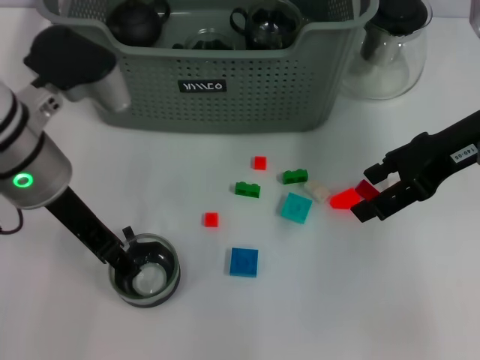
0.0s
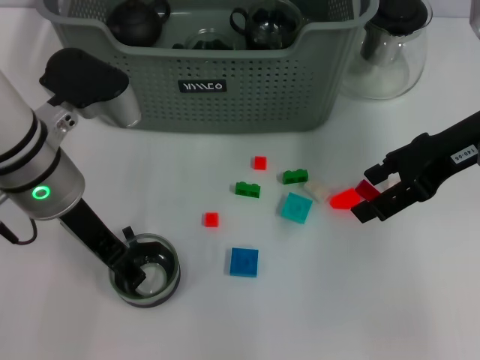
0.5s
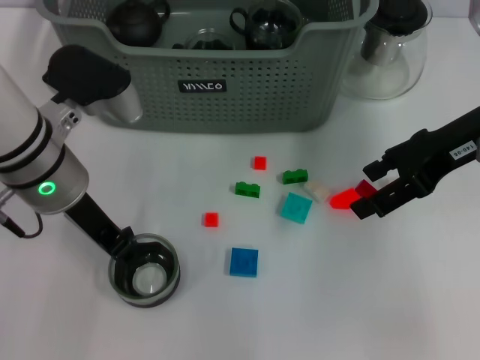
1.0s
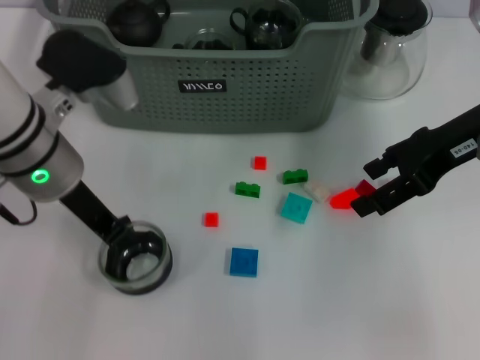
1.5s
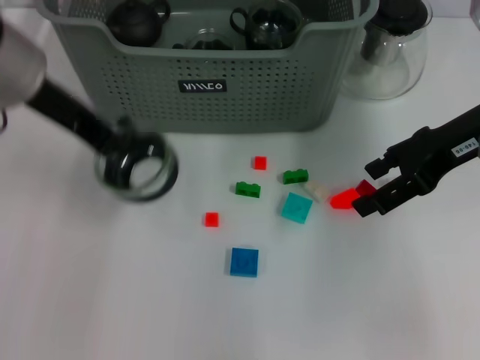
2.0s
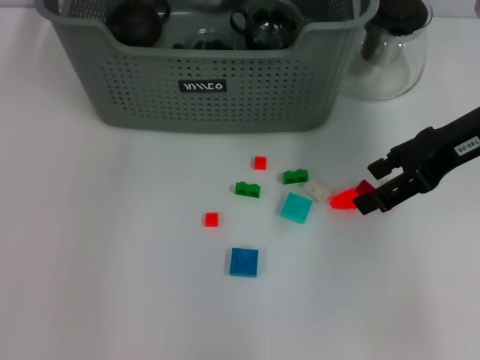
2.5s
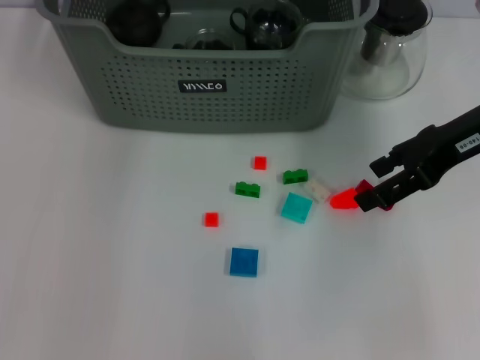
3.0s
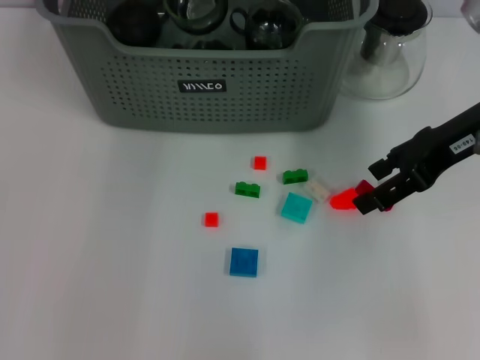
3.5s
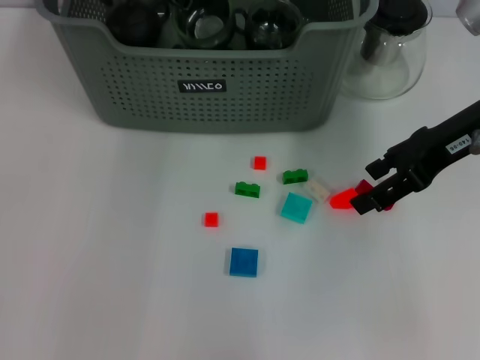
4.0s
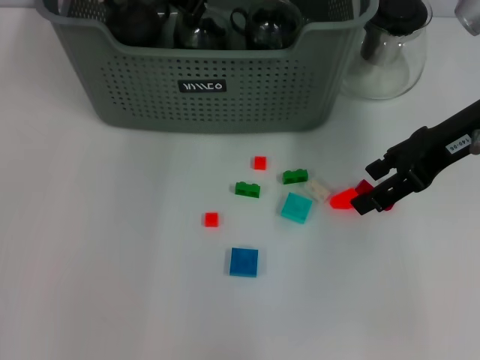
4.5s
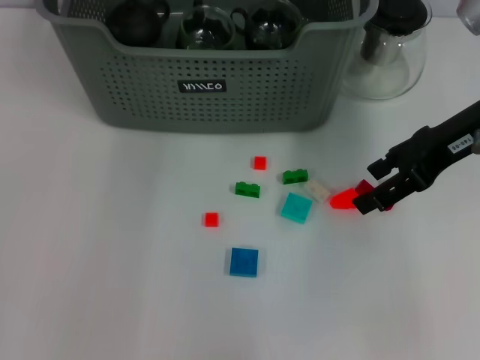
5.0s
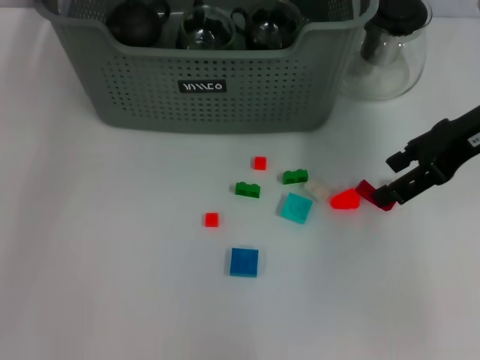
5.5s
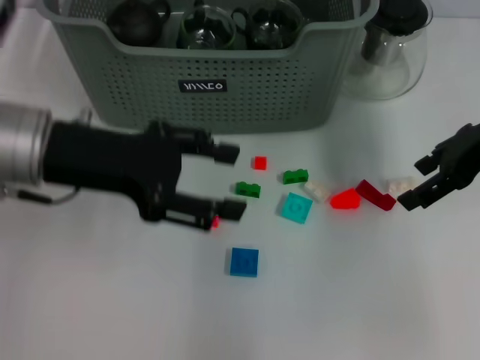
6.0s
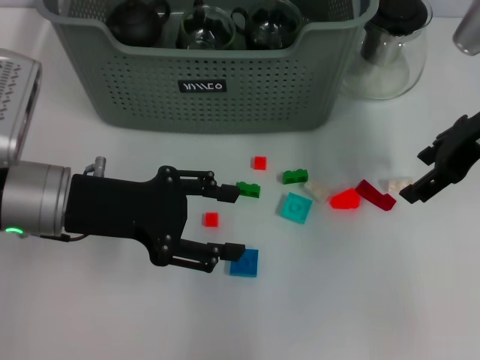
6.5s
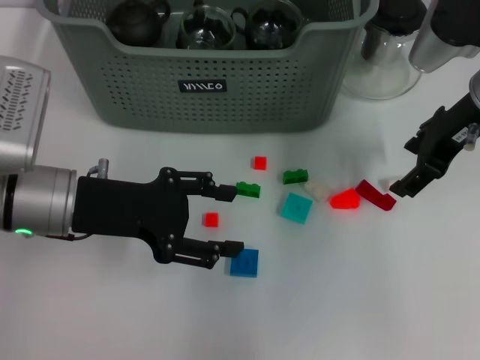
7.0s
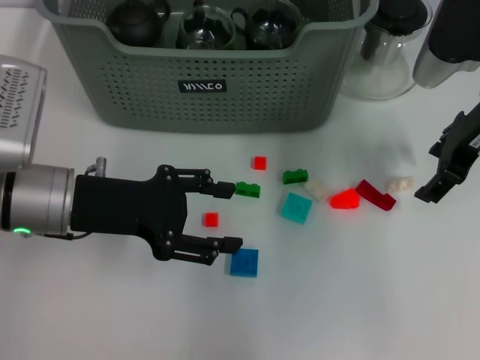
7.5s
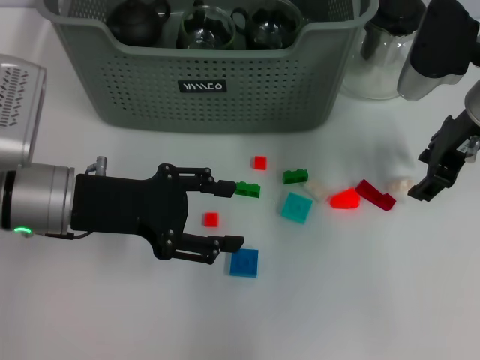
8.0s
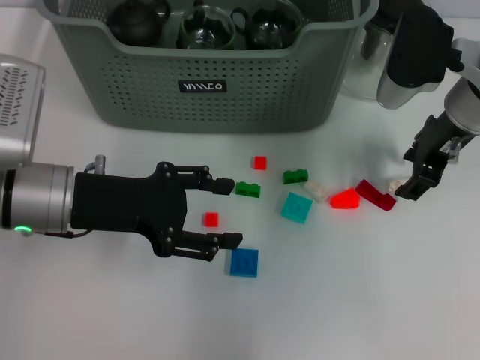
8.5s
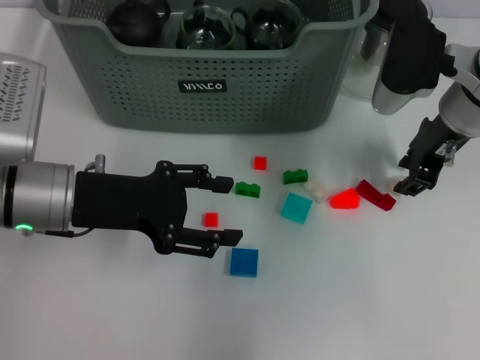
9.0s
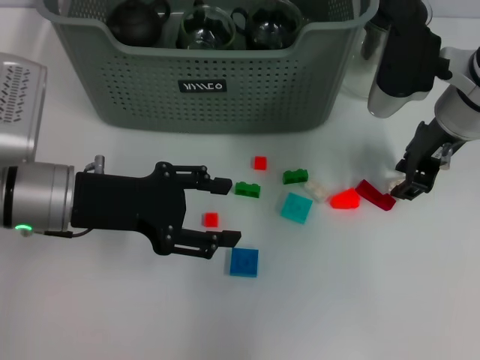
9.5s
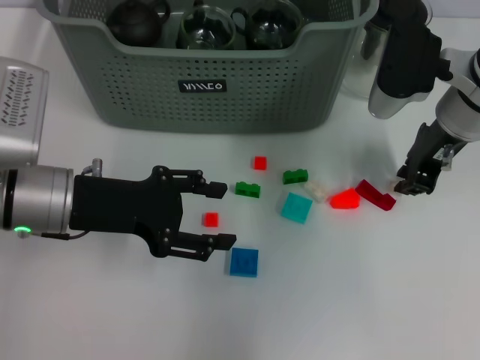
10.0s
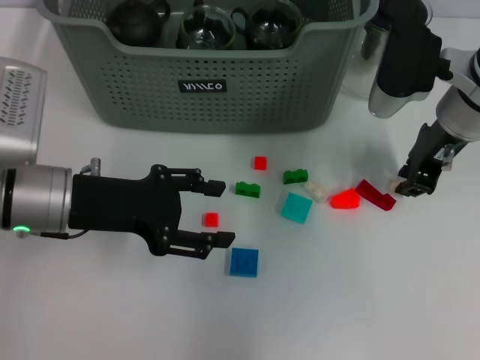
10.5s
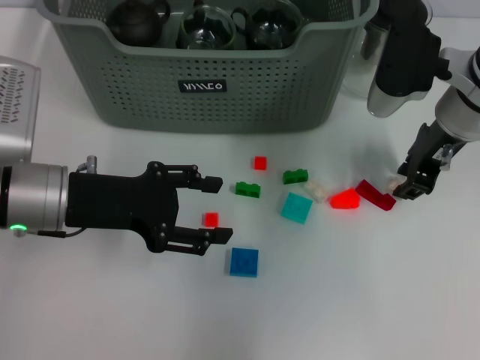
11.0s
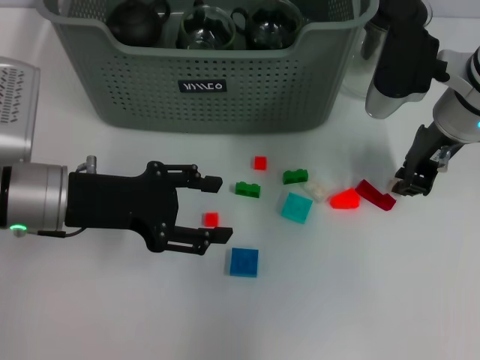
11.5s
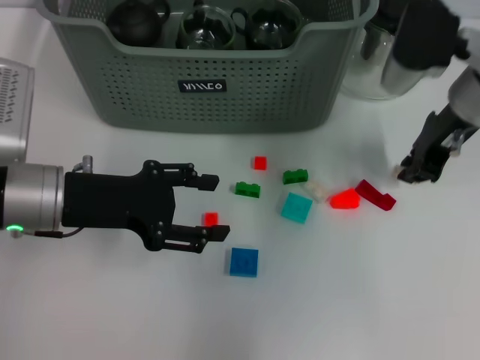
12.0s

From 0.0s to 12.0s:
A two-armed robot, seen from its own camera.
Task of the whole recording: pick up the teacup on the table and place it into the storage bin, pick up the block on the table and place it into the storage bin.
Step, from 1.5s to 4.5s: Place the cup in the storage box with left gripper.
Step, from 5.0s to 11.5s: Grasp the white block with right gripper.
From 0.0s to 2.0s: The left gripper shifts some 10 cm upward, and closes.
From 2.0s to 4.0s: The left gripper heads forward, covering approximately 15 cm.
From 4.0s to 6.0s: The left gripper shifts approximately 20 cm backward and to the left, and opens its fingers.
From 6.0s to 8.0s: The left gripper moves downward, roughly 5 cm; the right gripper shifts by roughly 5 cm.
From 8.0s to 10.0s: The right gripper closes its fingers.
From 10.0s to 12.0s: The grippers move only a little.

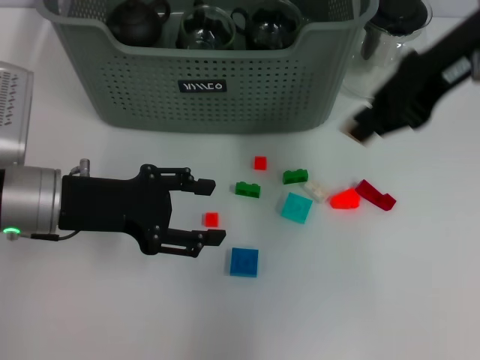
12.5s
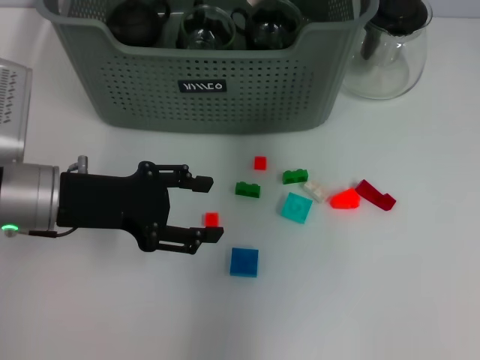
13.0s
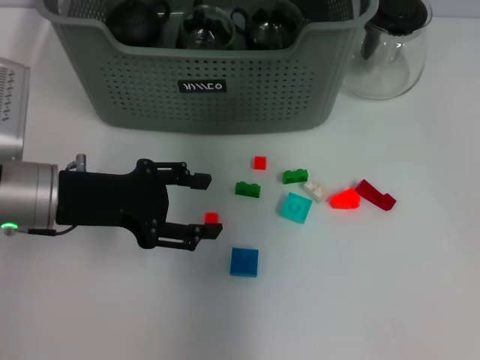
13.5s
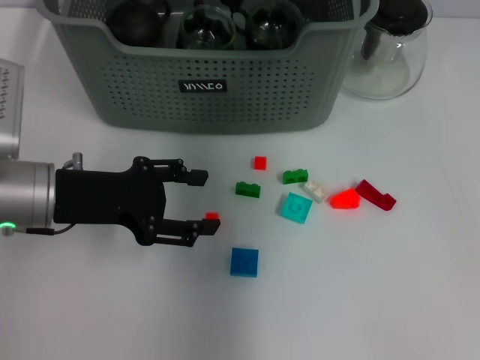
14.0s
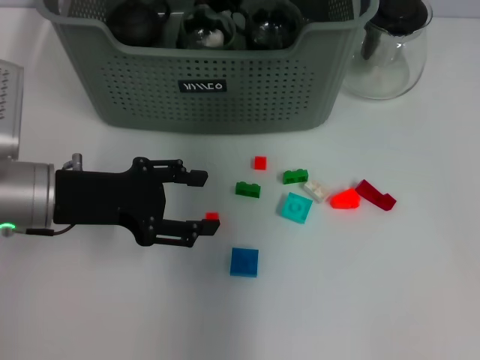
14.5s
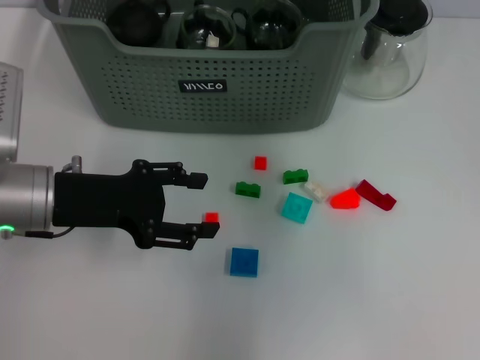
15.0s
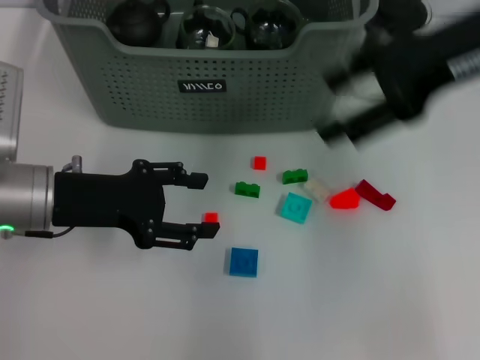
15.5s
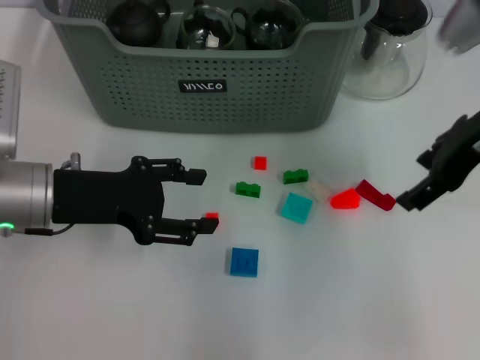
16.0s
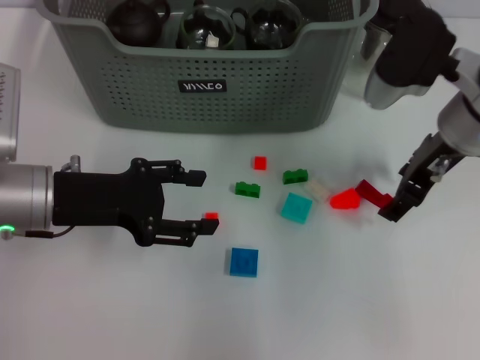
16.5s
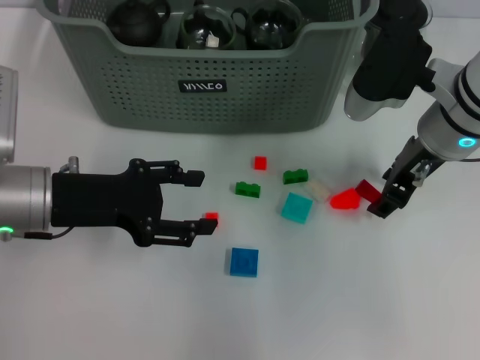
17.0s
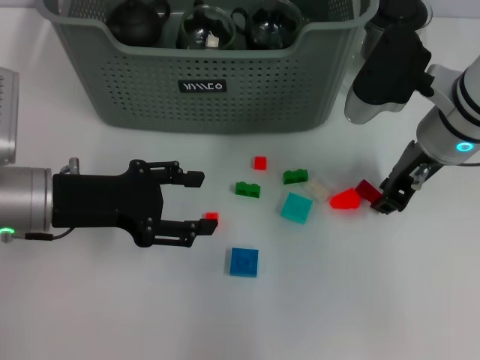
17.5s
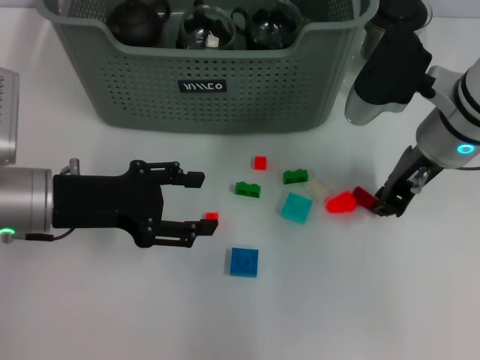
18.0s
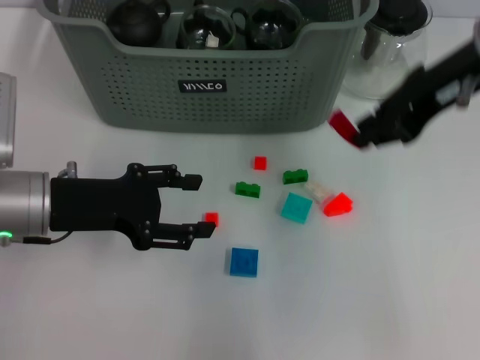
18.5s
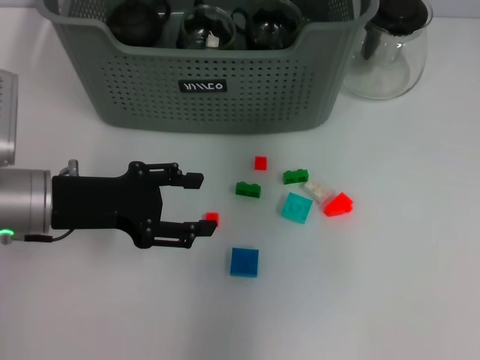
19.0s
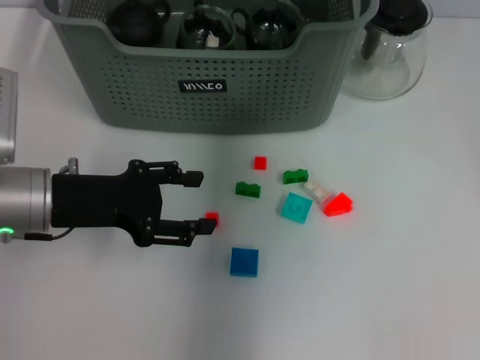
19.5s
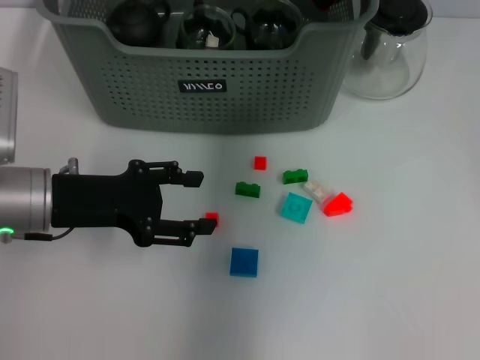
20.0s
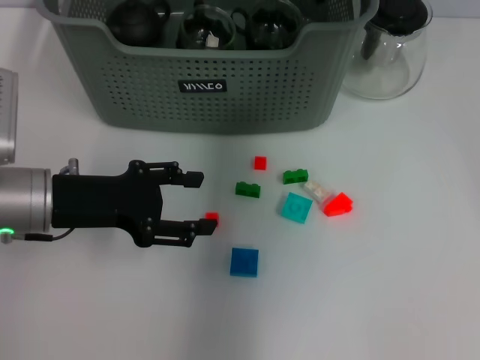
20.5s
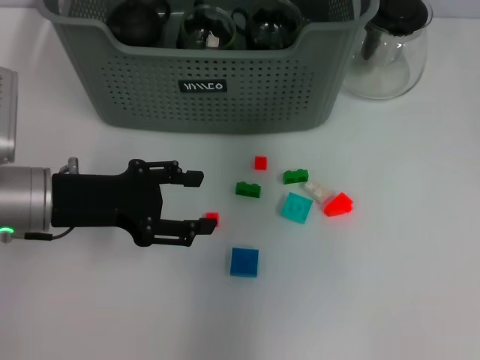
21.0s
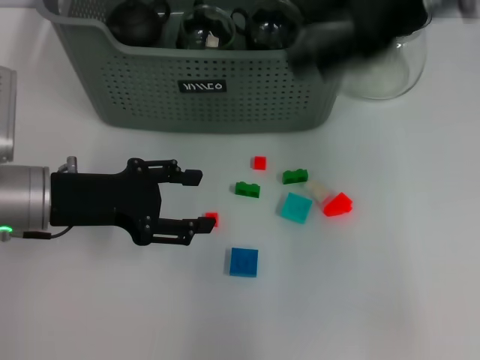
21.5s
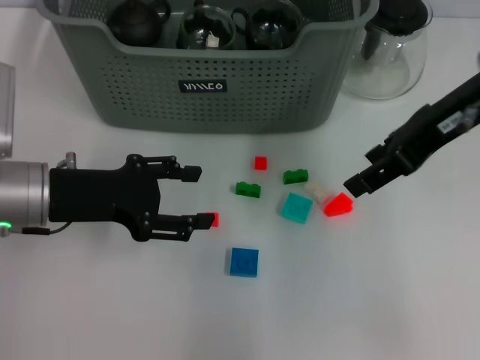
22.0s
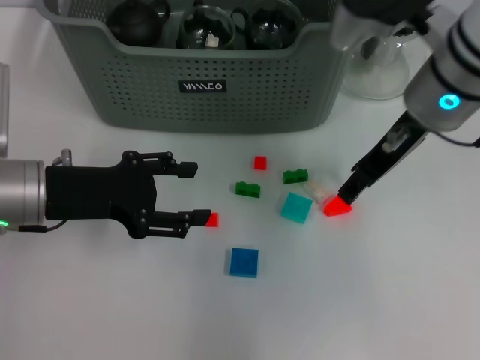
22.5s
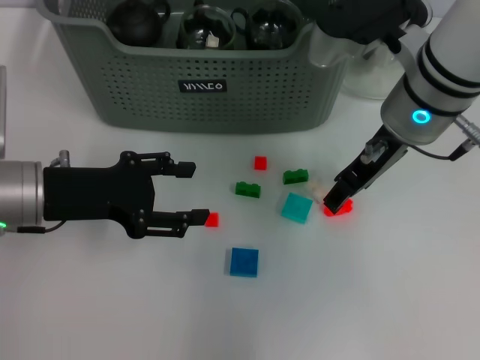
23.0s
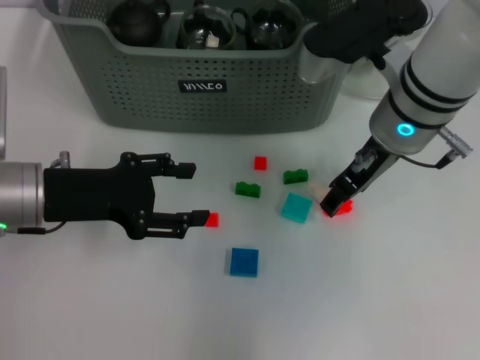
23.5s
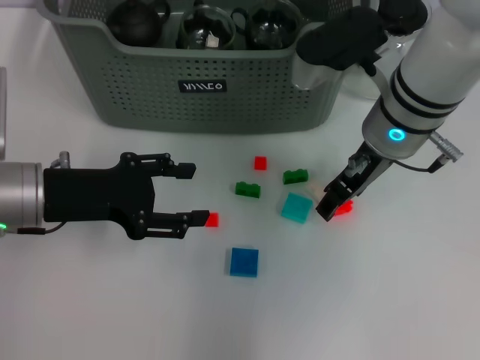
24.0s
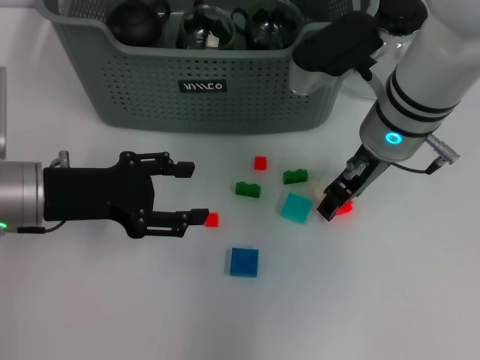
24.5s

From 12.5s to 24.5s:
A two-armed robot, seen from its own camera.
Task of the whole recording: pick up the teacup on the table and place it into the storage bin, pick up the block on the table and place it into the storage bin.
Step, from 12.5s to 14.0s: Place the white block in the storage box with right gripper.
Step, from 14.5s to 17.5s: Grasp the red block with right gripper.
Step, from 18.0s to 20.0s: Place the red block in the storage box with right gripper.
From 12.5s to 14.5s: The right gripper moves to the left and forward, about 20 cm.
From 14.5s to 16.5s: The right gripper shifts roughly 20 cm to the right, backward and downward, and opens.
From 16.5s to 18.5s: The right gripper travels upward by approximately 10 cm, and closes.
From 18.5s to 20.5s: The right gripper heads forward and to the left, covering roughly 15 cm.
From 20.5s to 22.5s: The right gripper goes about 15 cm backward and downward, and opens up.
From 22.5s to 24.5s: The right gripper moves roughly 5 cm.

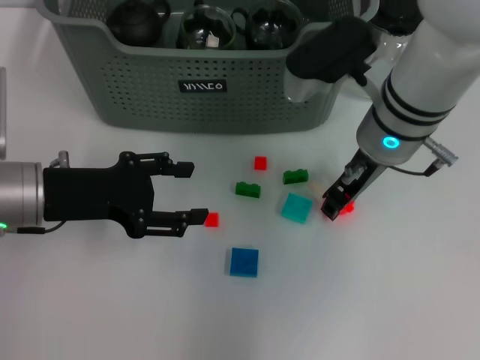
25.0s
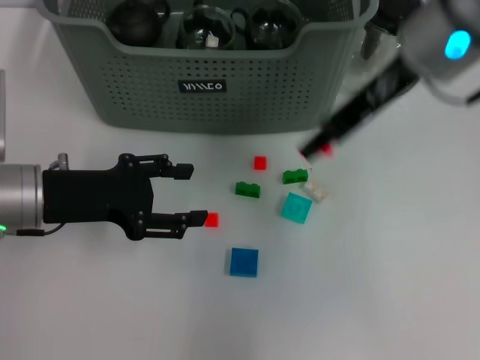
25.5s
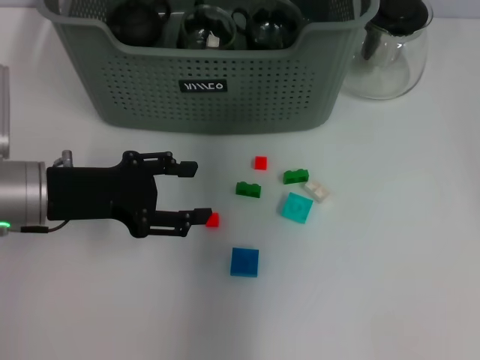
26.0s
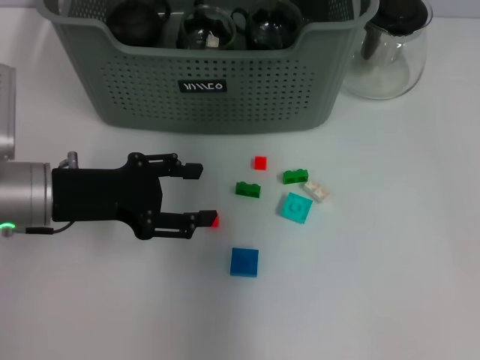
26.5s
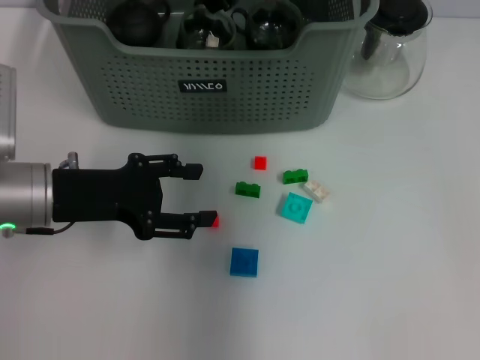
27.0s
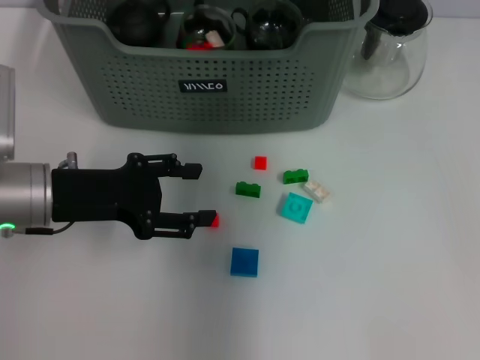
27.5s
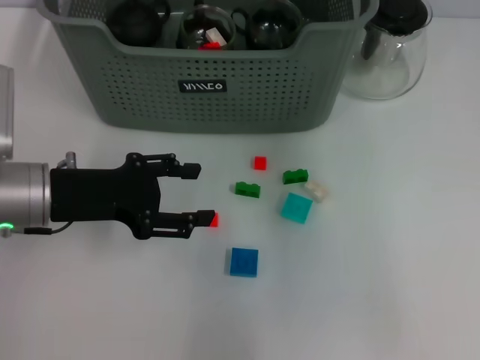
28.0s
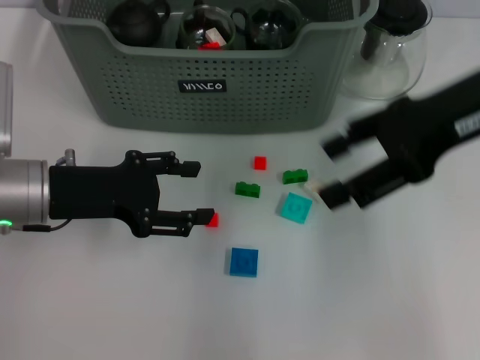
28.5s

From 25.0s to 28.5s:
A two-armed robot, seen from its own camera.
Task of the whole recording: pick up the teacup on the table and place it into the storage bin, pick up the block on the table and place it into the storage bin.
Step, from 25.0s to 27.0s: Place the orange block in the storage box with right gripper.
From 25.0s to 27.0s: The right gripper shifts about 15 cm forward, upward and to the left.
From 27.0s to 28.5s: The right gripper moves to the right and backward, about 20 cm, and opens its fingers.
